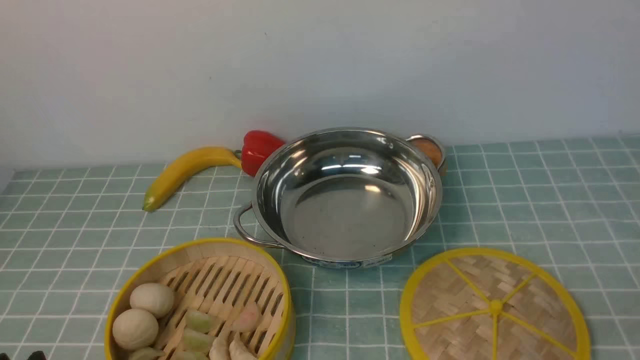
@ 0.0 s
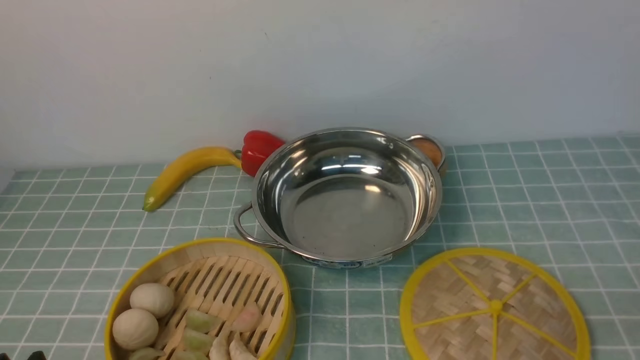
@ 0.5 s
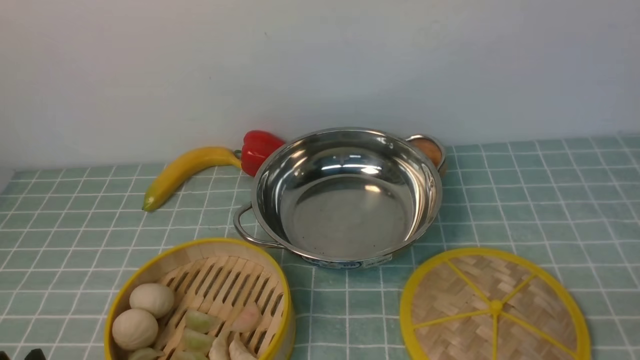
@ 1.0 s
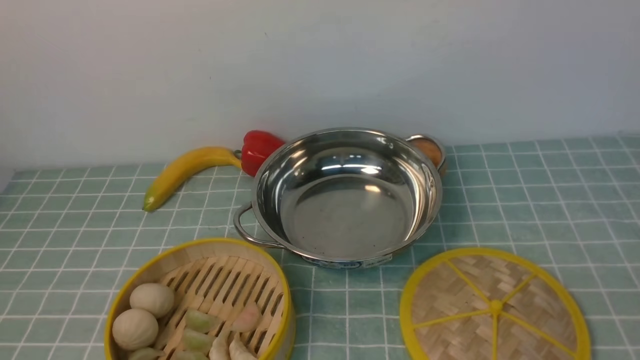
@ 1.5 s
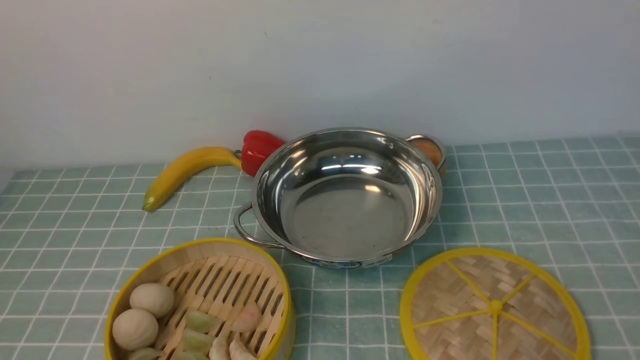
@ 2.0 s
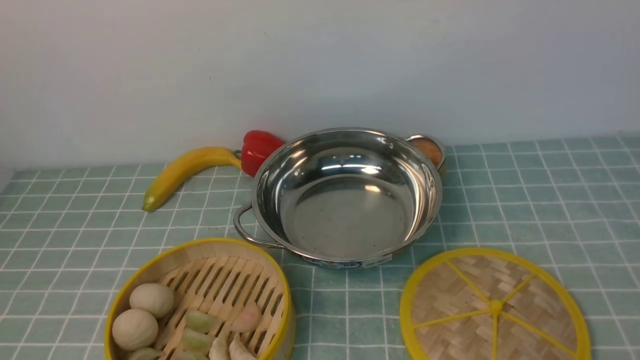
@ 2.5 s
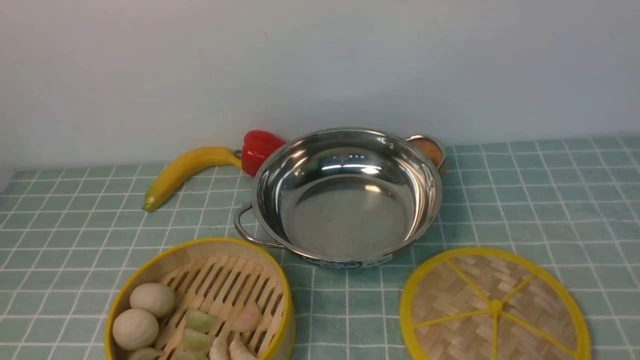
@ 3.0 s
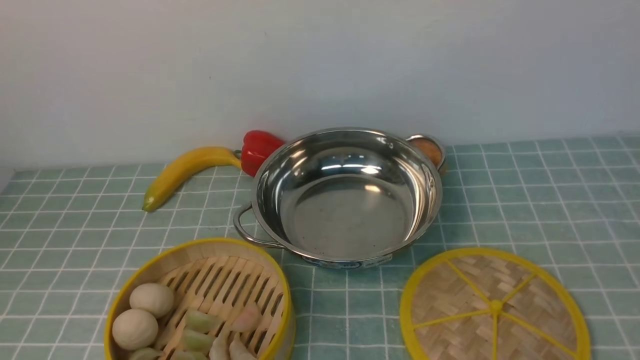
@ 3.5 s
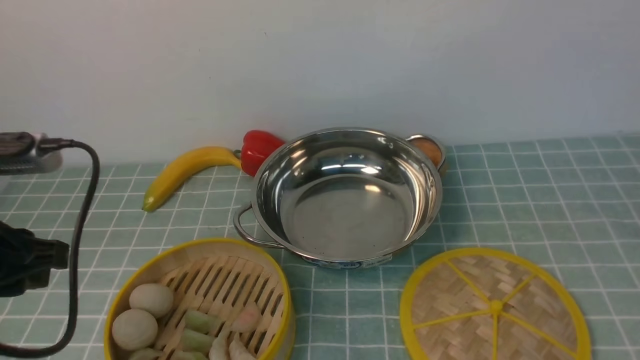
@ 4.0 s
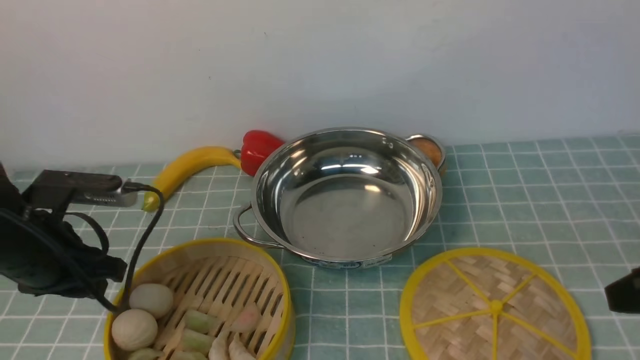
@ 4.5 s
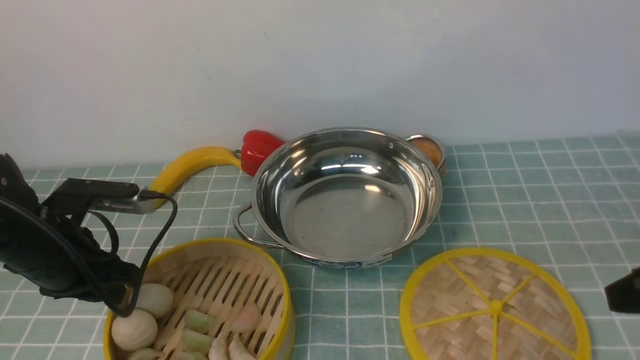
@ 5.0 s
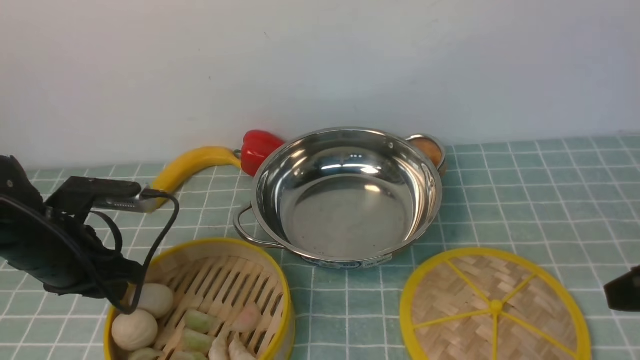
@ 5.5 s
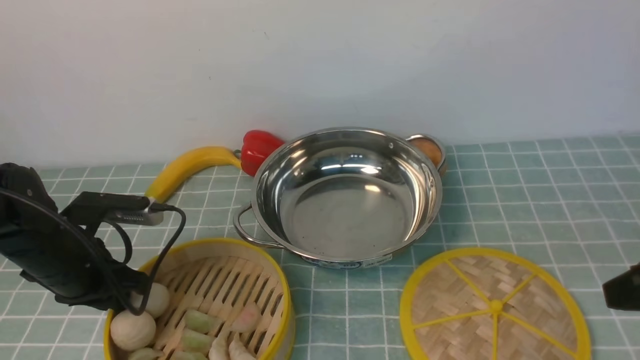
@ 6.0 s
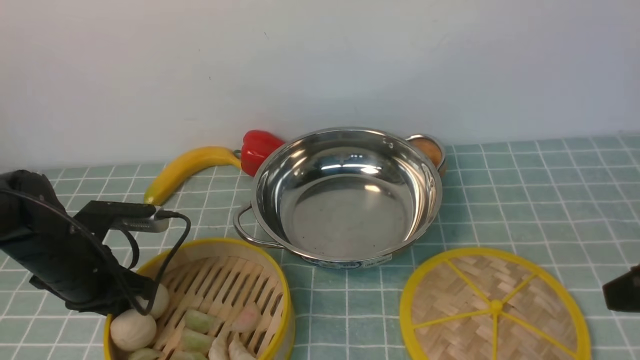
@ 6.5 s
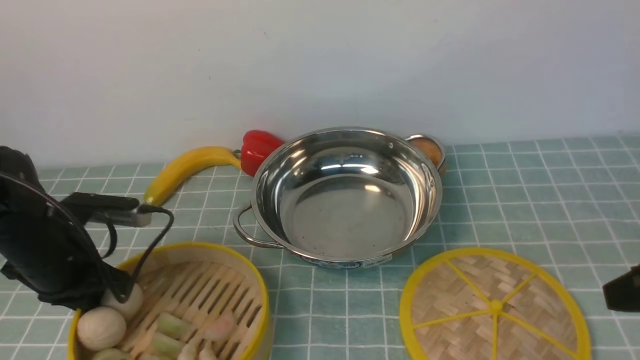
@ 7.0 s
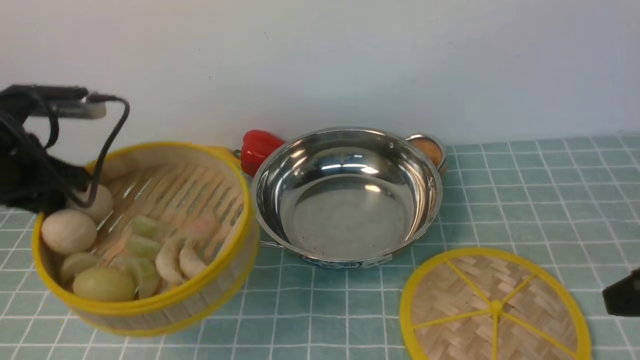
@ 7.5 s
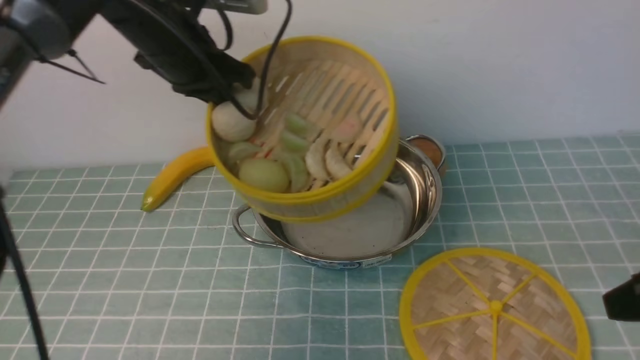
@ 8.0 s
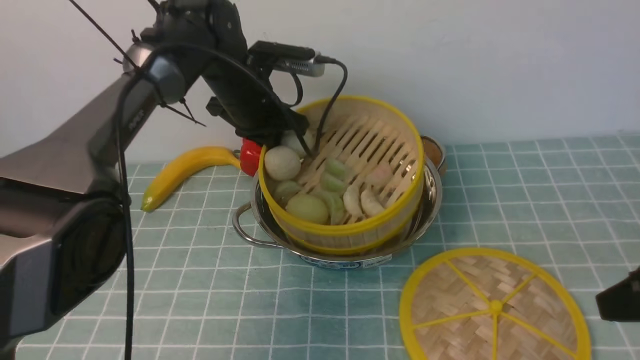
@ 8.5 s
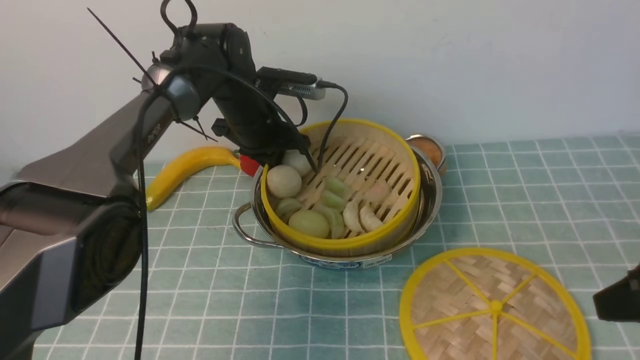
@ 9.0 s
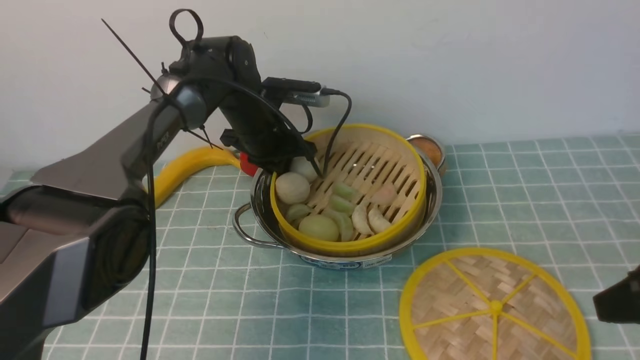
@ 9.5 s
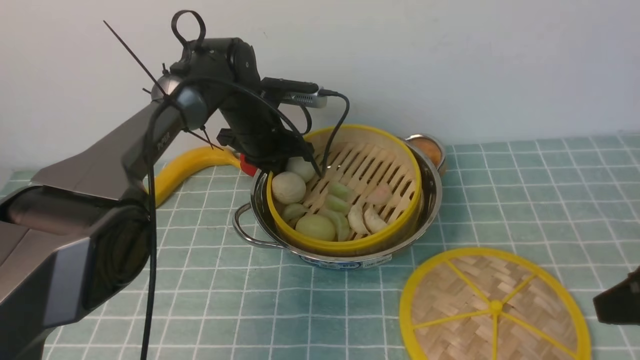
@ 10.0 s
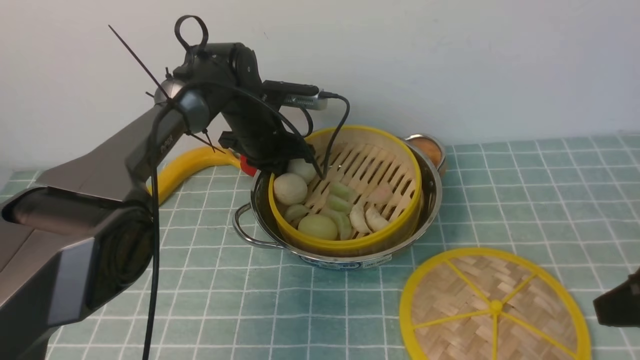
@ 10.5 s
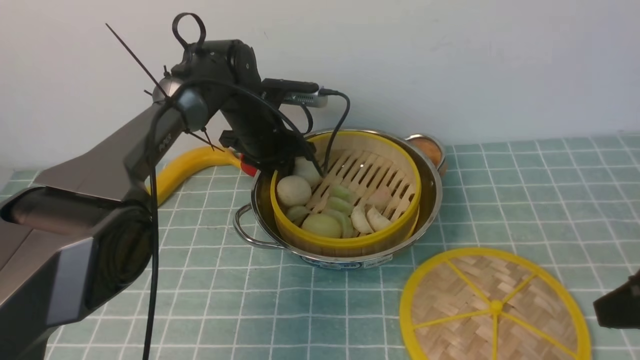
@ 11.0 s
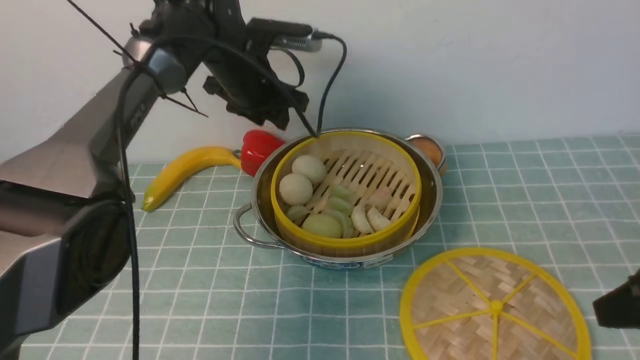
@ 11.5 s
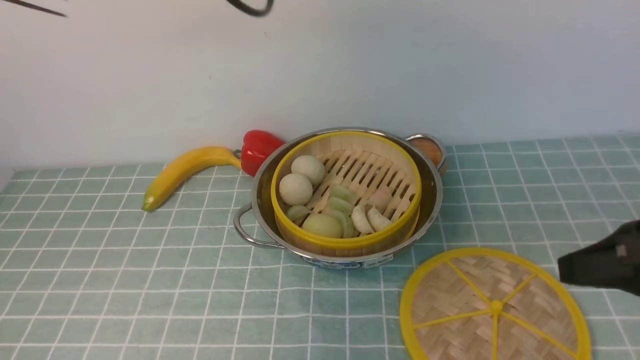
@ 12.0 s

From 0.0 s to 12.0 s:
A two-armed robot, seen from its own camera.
Task of the whole recording: place the steamer in the pot on the blue tablecloth, and put the lid on the steamer.
Step, from 0.0 s to 7.0 s: use the left arm to lift the steamer closest to it.
Step, from 7.5 s to 11.5 s: use the left arm to put the steamer into the iron steamer pot in the middle.
From 2.0 s to 4.0 s: The grippers both shift forward and upward by roughly 15 cm.
From 4.0 s to 6.0 s: The right gripper shifts by roughly 5 cm. The left gripper shifts roughly 15 cm downward and forward.
From 6.0 s to 8.0 s: The left gripper travels upward, forward and to the right by roughly 25 cm, and closes.
From 8.0 s to 10.0 s: The left gripper is displaced downward and forward by some 15 cm.
From 10.0 s to 12.0 s: The left gripper moves upward and backward, about 30 cm, and opens and closes again.

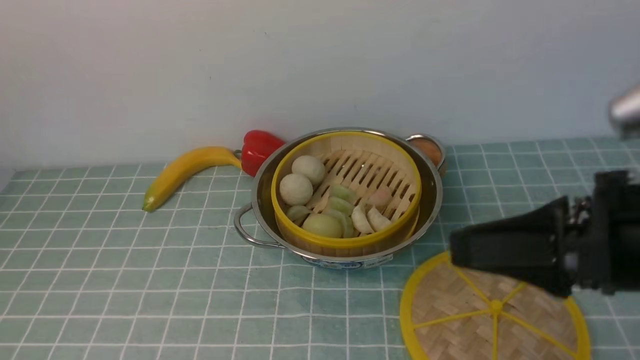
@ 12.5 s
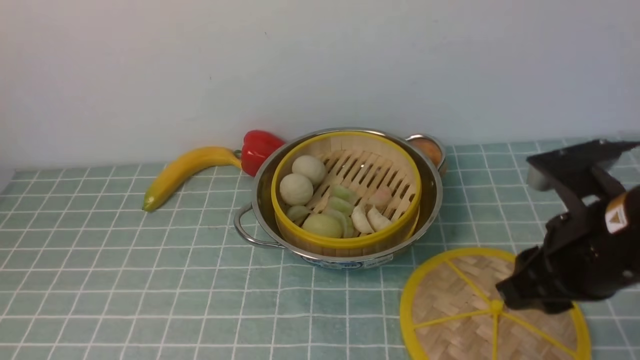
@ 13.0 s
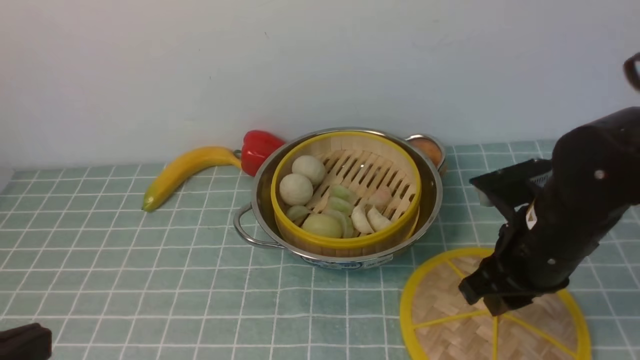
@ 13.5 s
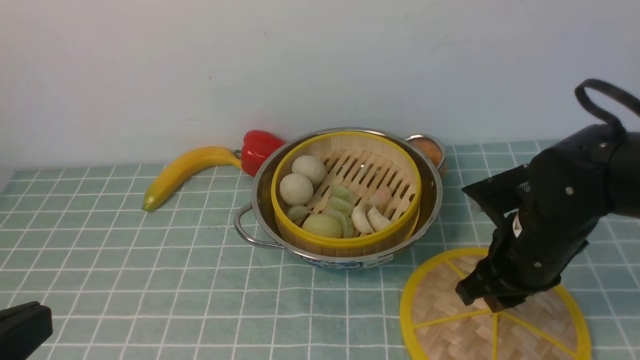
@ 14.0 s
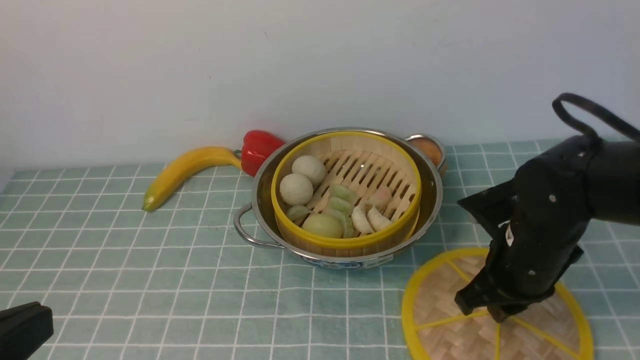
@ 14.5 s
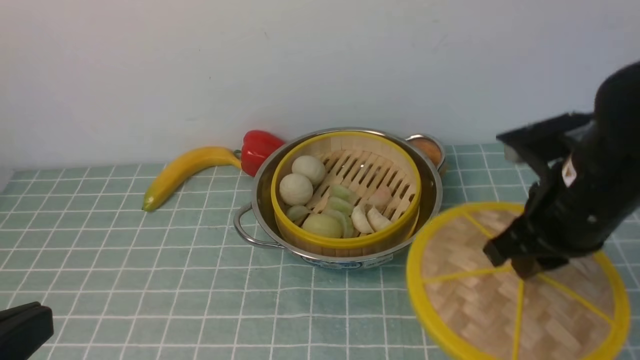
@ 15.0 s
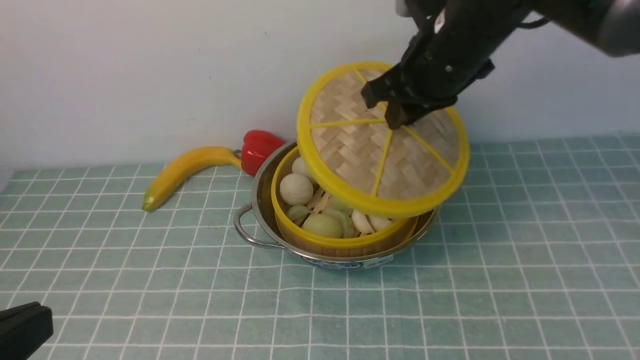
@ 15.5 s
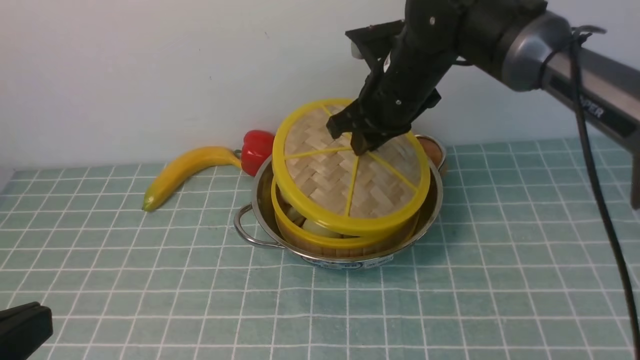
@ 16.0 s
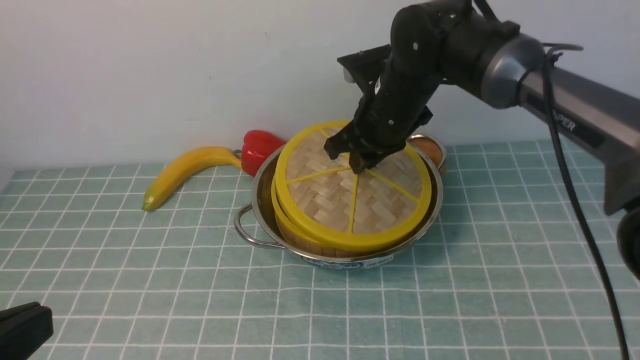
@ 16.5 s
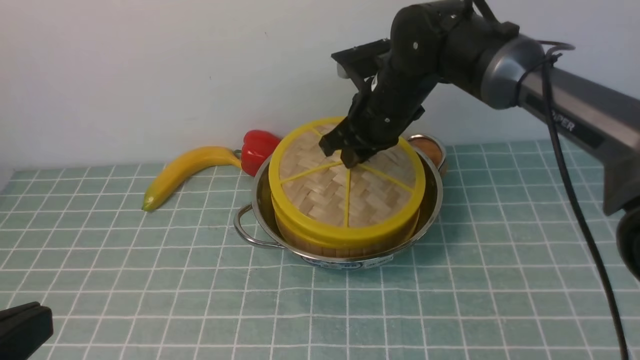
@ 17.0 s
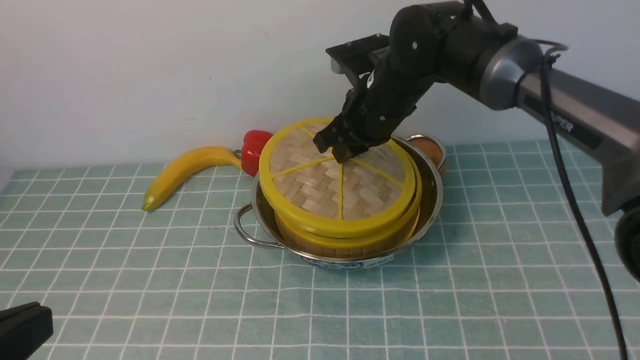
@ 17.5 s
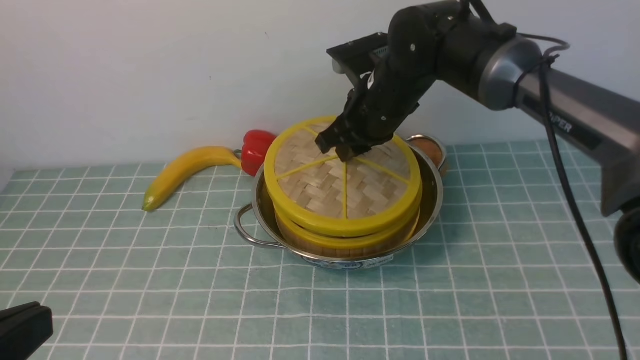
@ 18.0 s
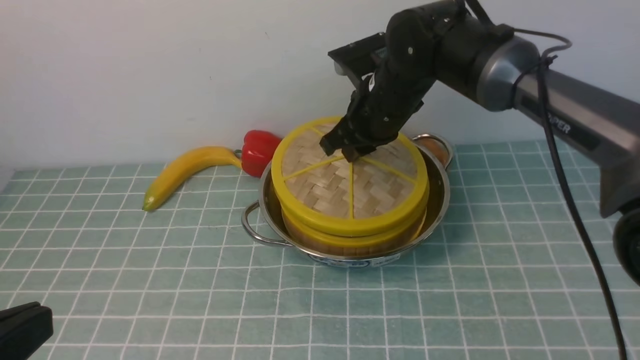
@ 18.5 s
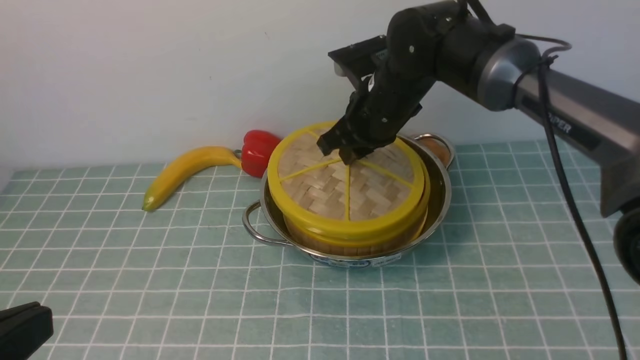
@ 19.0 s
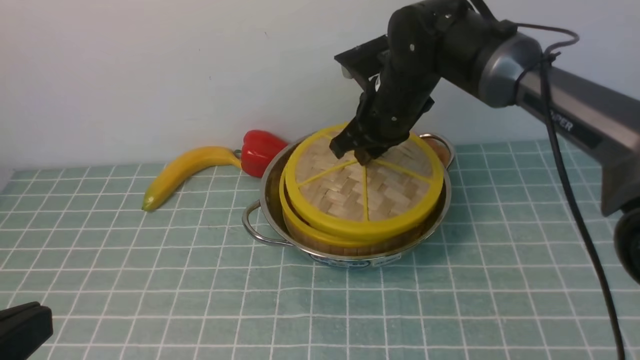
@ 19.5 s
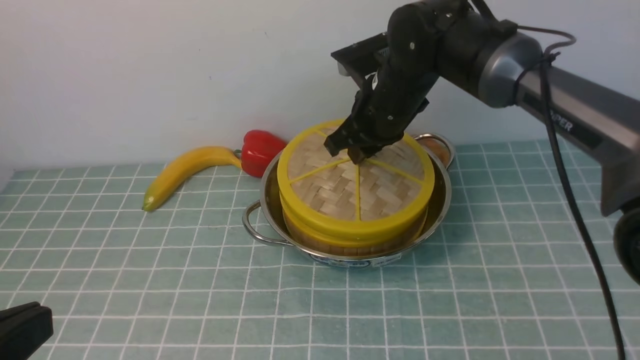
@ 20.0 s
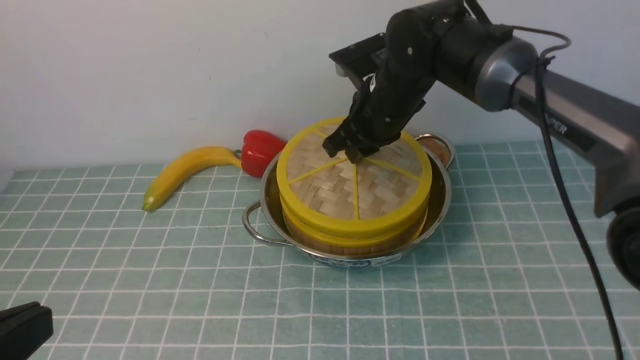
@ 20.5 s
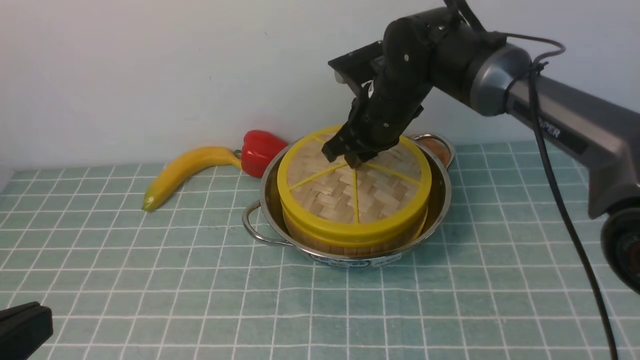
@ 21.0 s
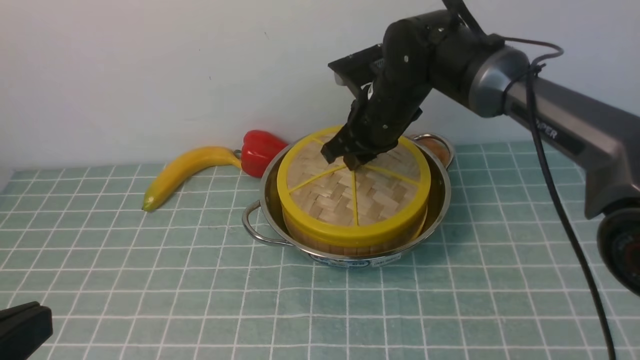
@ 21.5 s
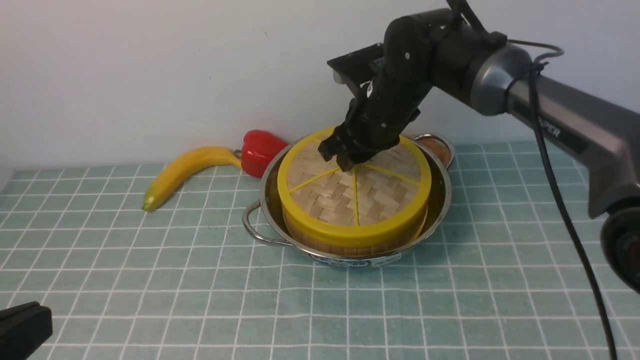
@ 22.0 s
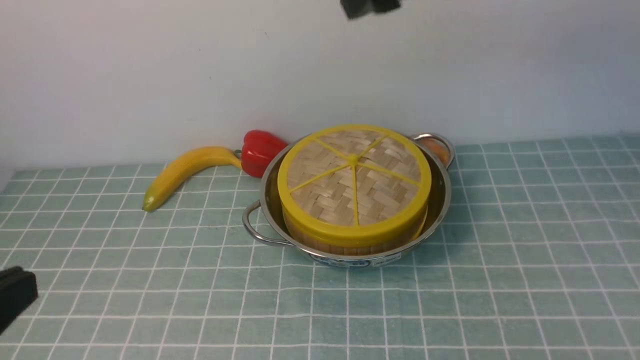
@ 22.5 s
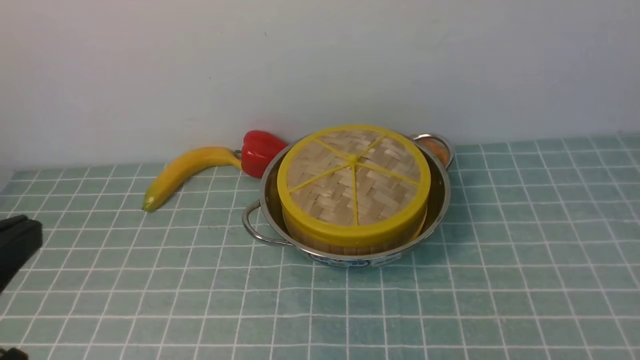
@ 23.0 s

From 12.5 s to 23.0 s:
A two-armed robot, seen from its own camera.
Task of the whole recording: place the steamer in the pot on the blue tablecloth, and put the lid on the steamer.
Step, from 12.5 s to 15.0 s: use the right arm to lift the lid of the steamer.
Step, from 15.5 s to 22.5 s: use the right arm to place the steamer lid on the steamer.
From 12.5 s to 14.5 s: The left gripper moves downward and backward, about 25 cm. The right gripper moves downward and forward, approximately 15 cm.
From 14.5 s to 16.5 s: The right gripper travels forward, to the left and upward by about 20 cm.
From 16.5 s to 19.0 s: The grippers stay close to where they were, moving slightly.
From 19.0 s to 21.0 s: Both grippers stay about where they are.
From 21.0 s to 23.0 s: The right gripper shifts about 40 cm backward, upward and to the right, and opens and closes again.
